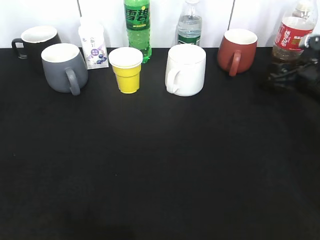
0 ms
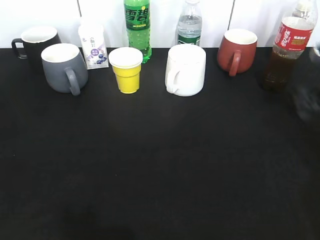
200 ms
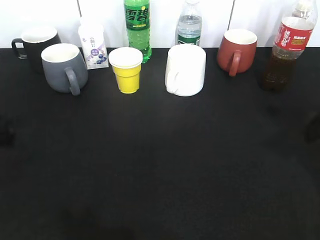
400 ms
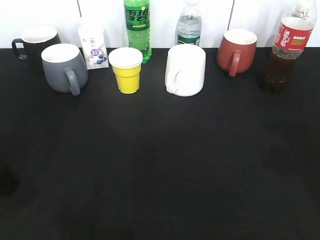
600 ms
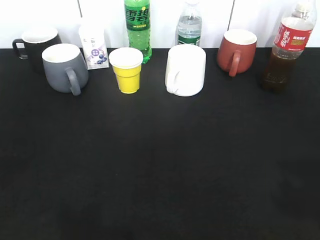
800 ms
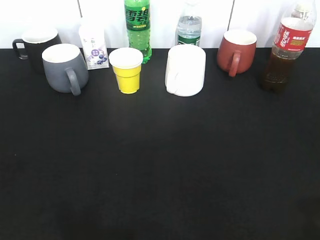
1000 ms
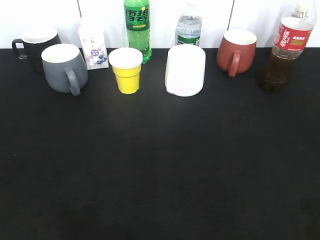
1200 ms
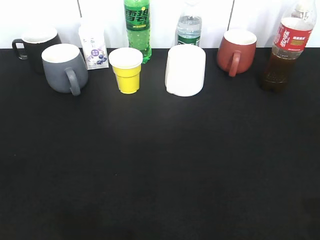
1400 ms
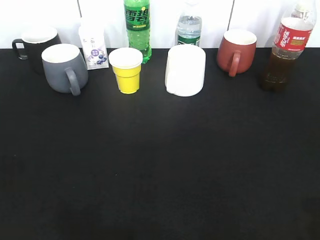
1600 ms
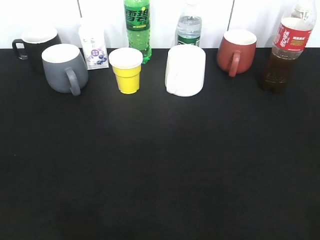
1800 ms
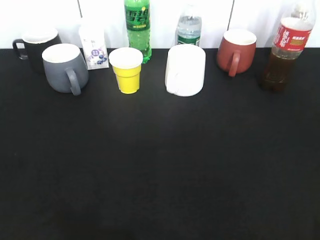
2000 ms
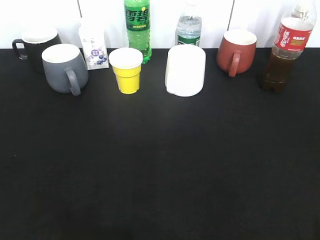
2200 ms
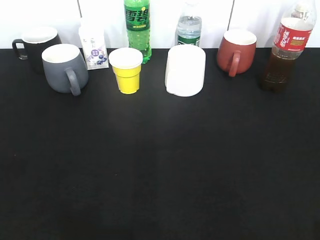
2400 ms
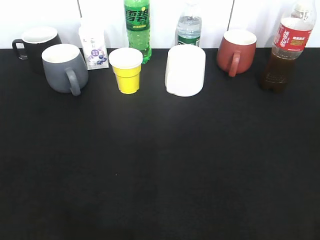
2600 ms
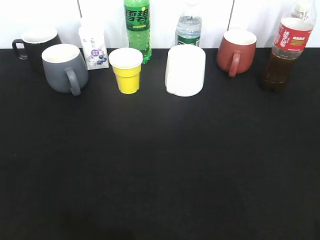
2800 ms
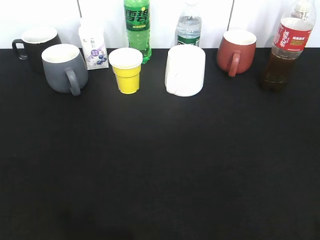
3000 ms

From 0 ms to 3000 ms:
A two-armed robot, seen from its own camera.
From 0 ms to 1600 ms: The left gripper is displaced backward by about 25 cm. Meanwhile the right gripper travels backward and upward by about 35 cm.
